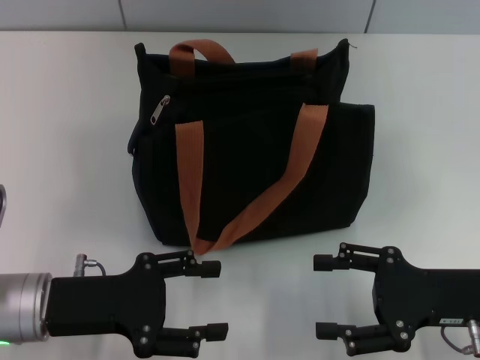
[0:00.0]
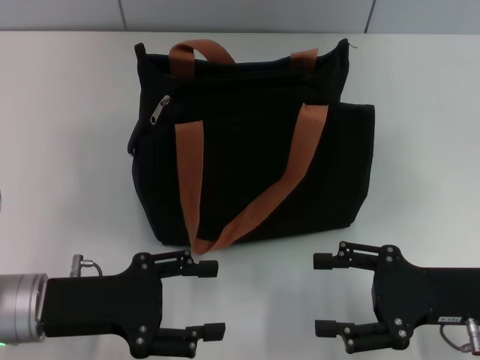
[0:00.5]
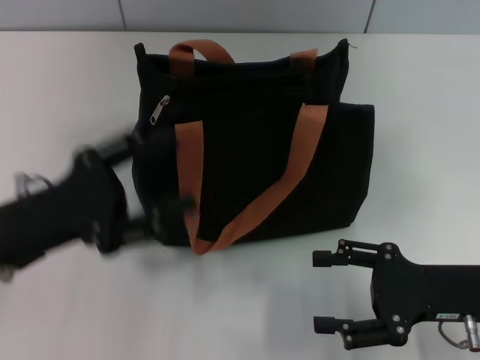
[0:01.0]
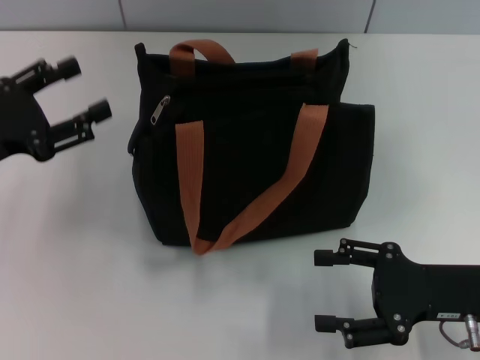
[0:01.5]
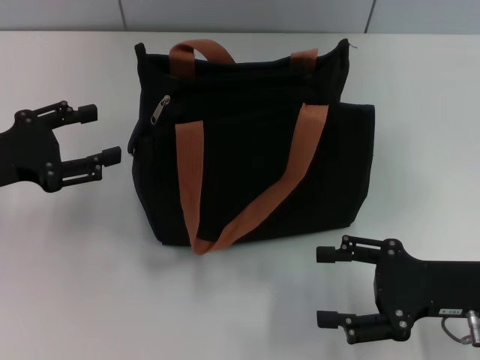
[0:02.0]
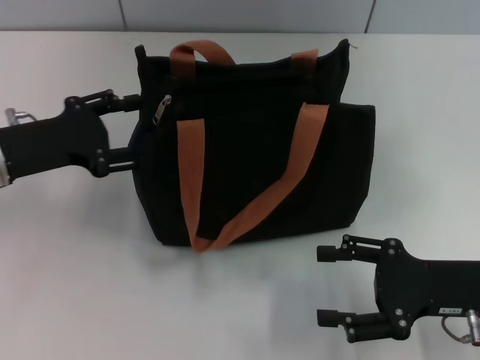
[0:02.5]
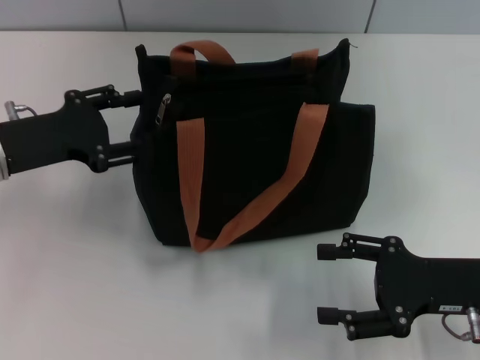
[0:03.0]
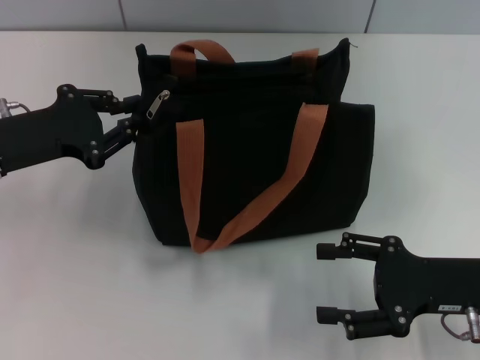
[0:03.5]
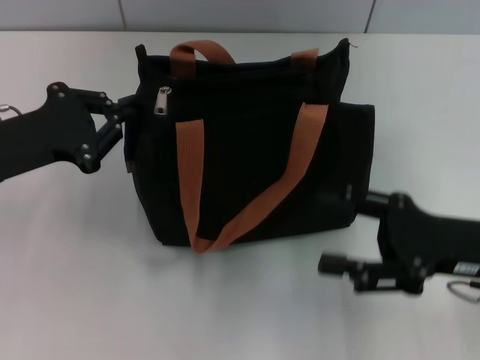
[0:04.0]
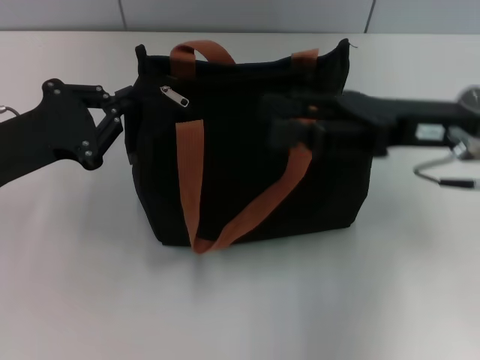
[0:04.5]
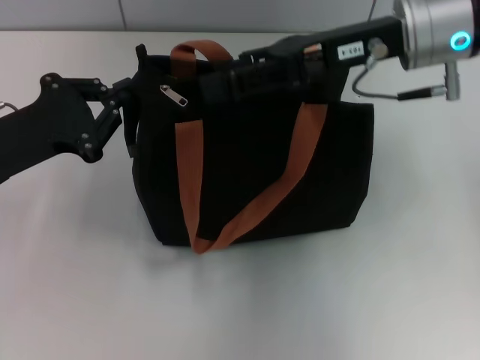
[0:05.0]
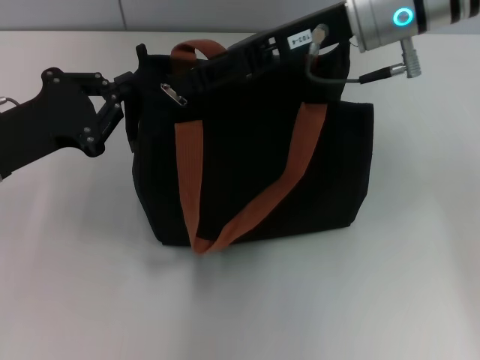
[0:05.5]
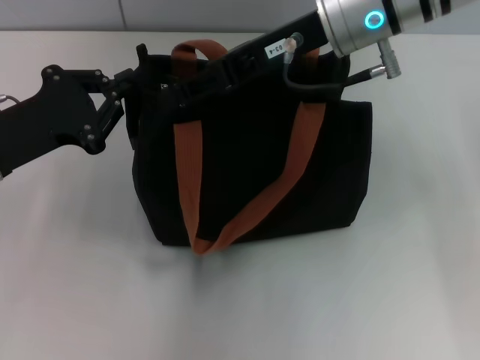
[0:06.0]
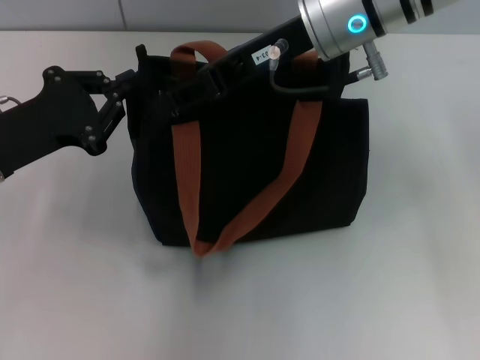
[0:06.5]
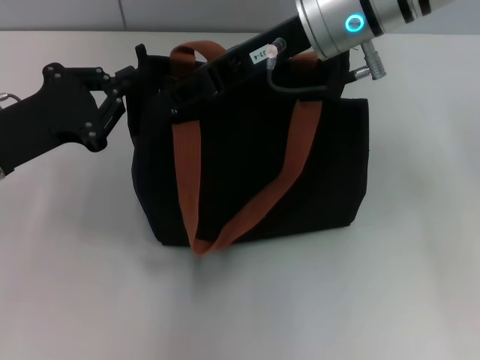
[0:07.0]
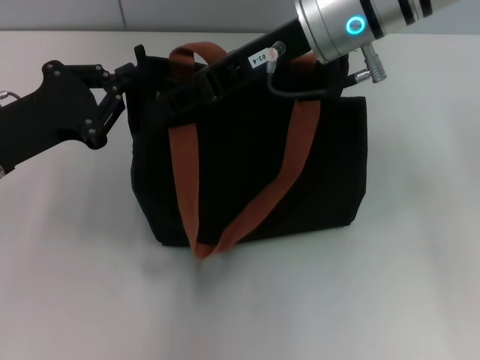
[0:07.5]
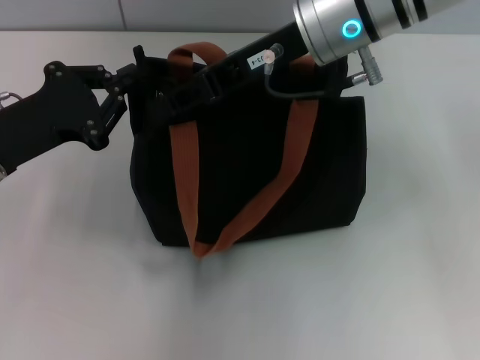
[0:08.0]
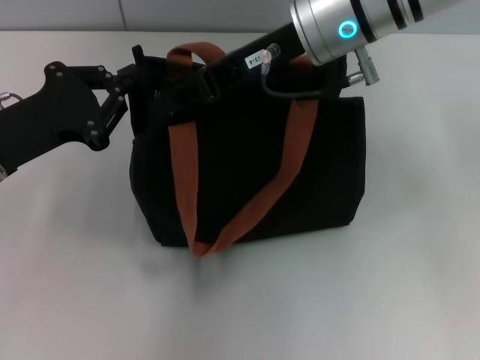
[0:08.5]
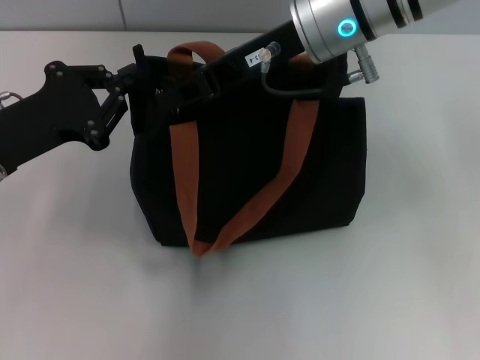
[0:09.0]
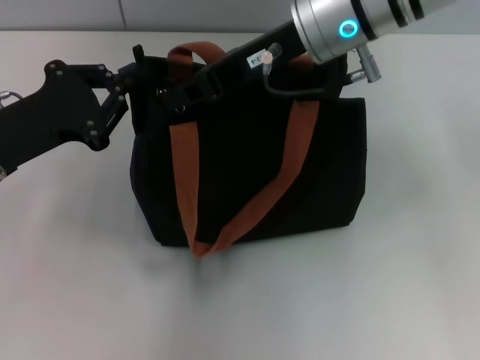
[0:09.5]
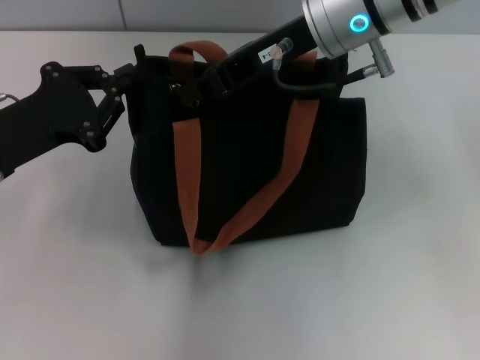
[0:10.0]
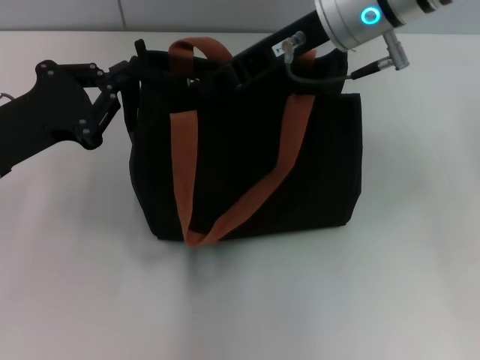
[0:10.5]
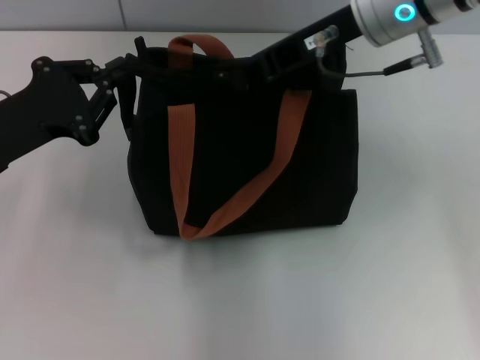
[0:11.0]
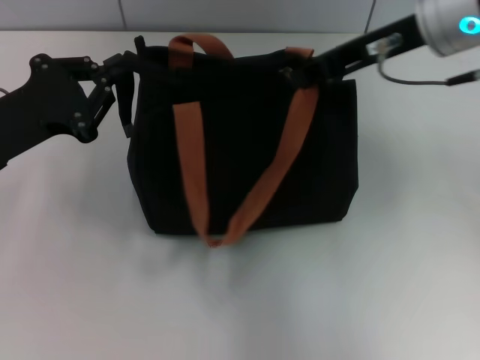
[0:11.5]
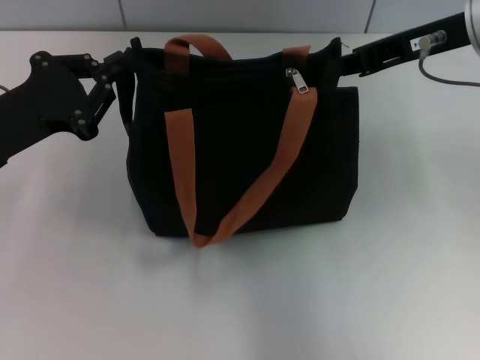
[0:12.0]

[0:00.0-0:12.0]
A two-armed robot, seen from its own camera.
0:00.0 to 0:02.0: The left gripper is displaced to the left, forward and upward by roughly 15 cm.
0:02.0 to 0:04.0: The left gripper closes its fingers.
0:04.0 to 0:06.0: The right gripper is displaced to the left, forward and upward by roughly 25 cm, and closes.
0:06.0 to 0:08.0: The grippers make only small movements.
0:08.0 to 0:10.0: The right gripper closes up.
0:10.0 to 0:12.0: The right gripper travels to the right by roughly 10 cm.

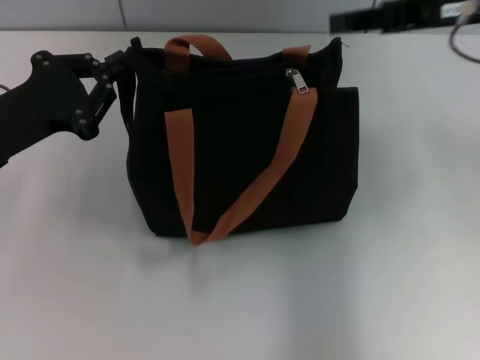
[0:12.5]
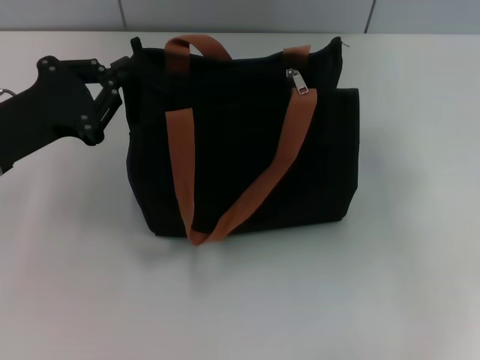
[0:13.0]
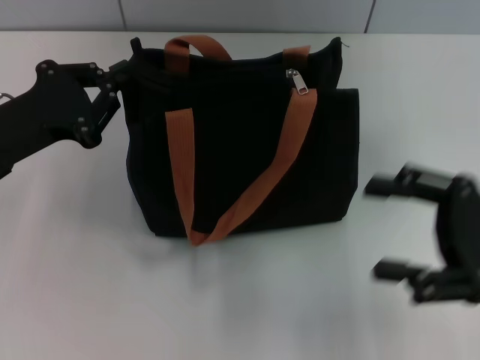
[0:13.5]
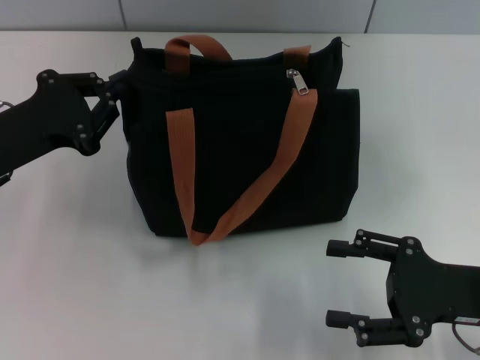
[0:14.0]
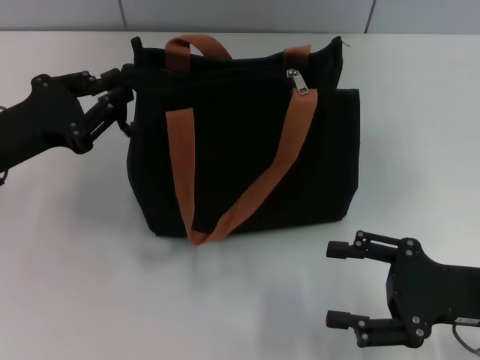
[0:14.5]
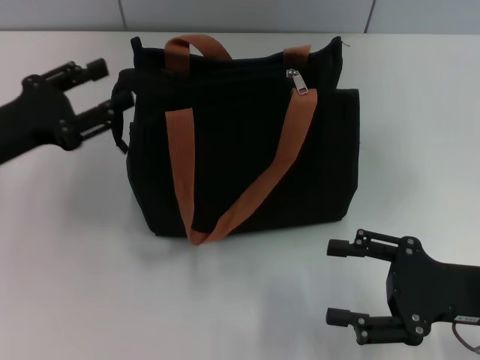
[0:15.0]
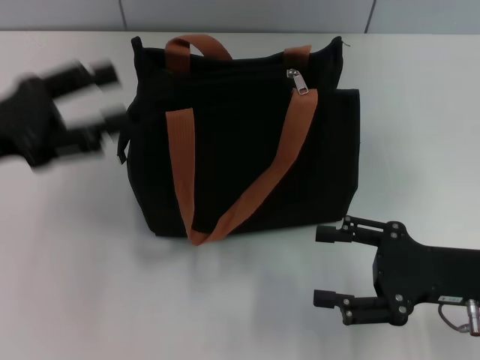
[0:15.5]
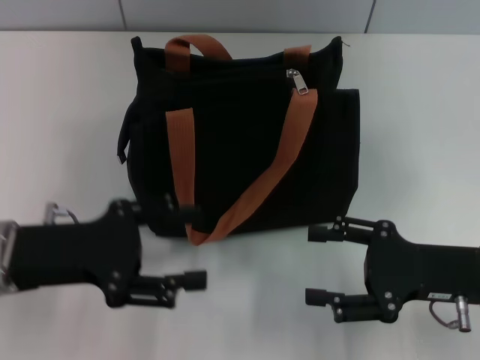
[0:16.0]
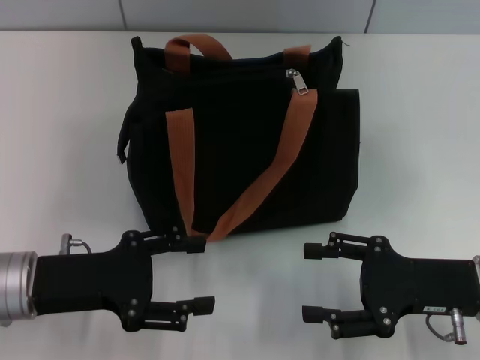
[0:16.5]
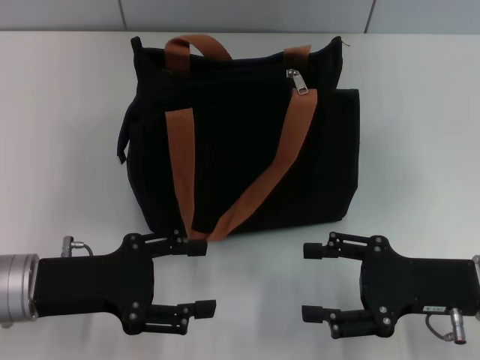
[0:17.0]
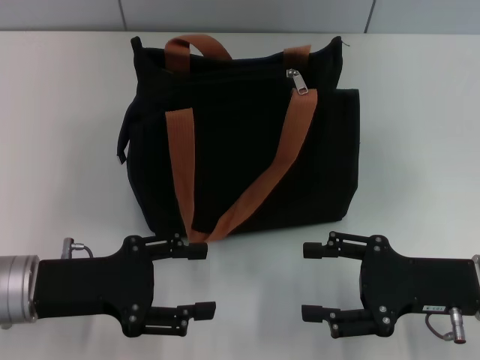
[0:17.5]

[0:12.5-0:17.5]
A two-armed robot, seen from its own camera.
0:12.5 to 0:15.0: The right gripper moves downward and backward, about 25 cm, and opens; the left gripper opens its fingers.
0:15.0 to 0:17.5: The left gripper travels backward and to the right by approximately 10 cm, and opens.

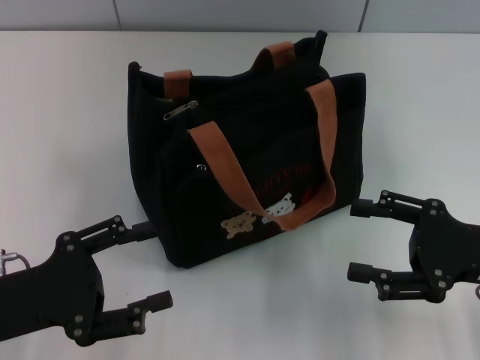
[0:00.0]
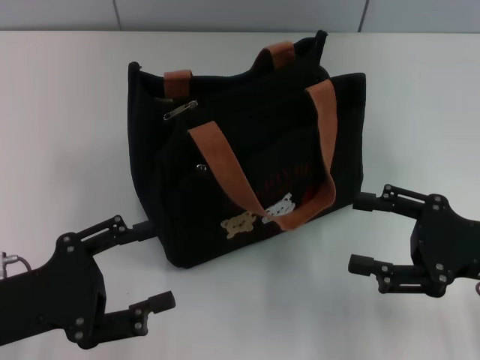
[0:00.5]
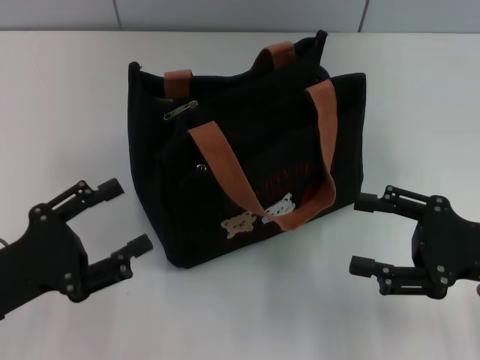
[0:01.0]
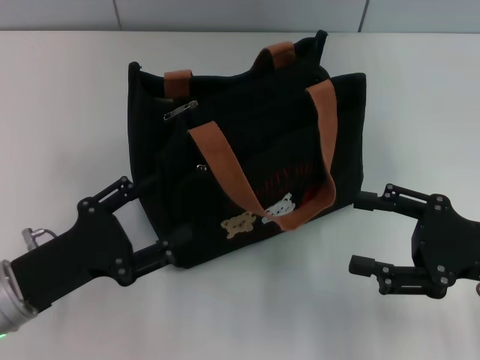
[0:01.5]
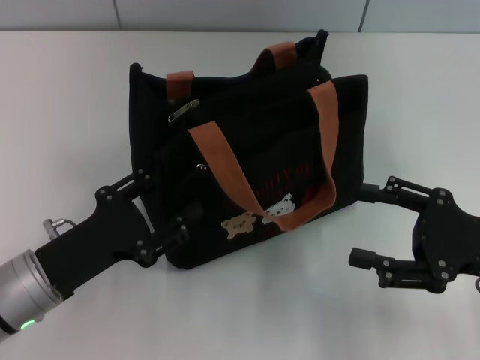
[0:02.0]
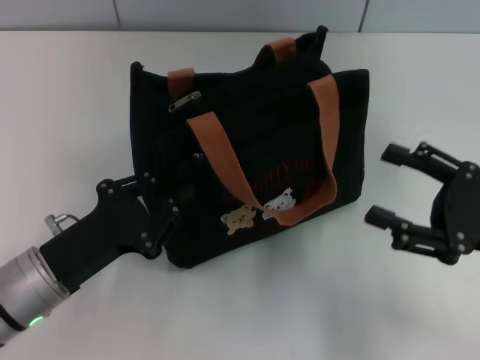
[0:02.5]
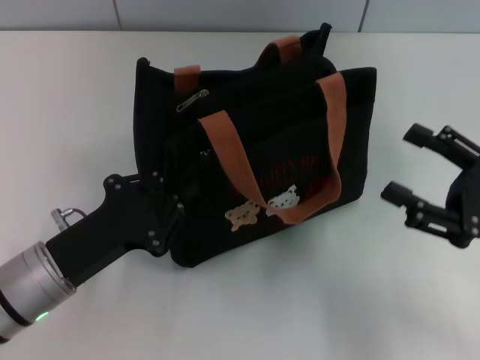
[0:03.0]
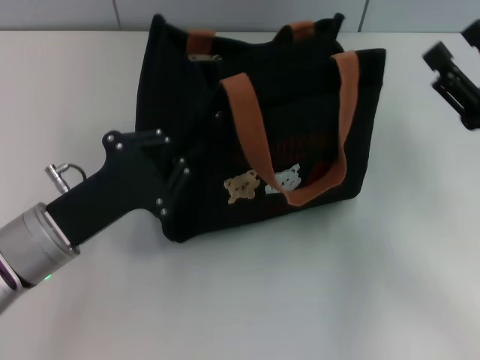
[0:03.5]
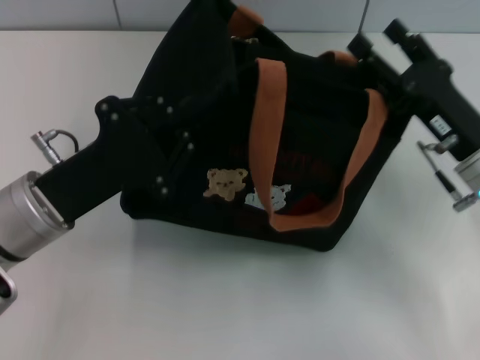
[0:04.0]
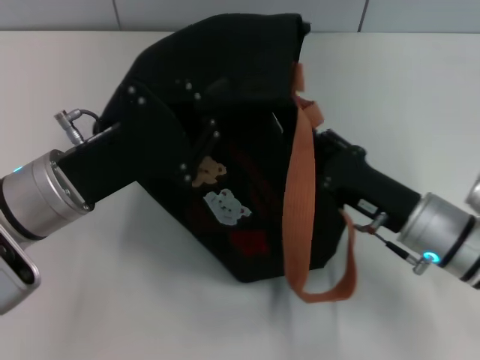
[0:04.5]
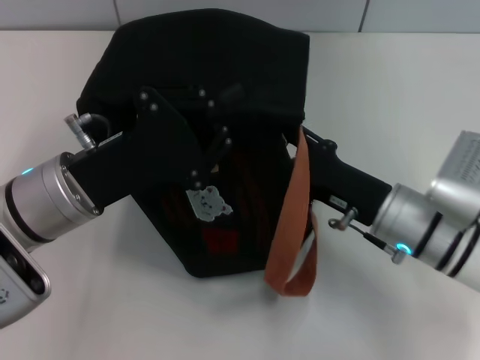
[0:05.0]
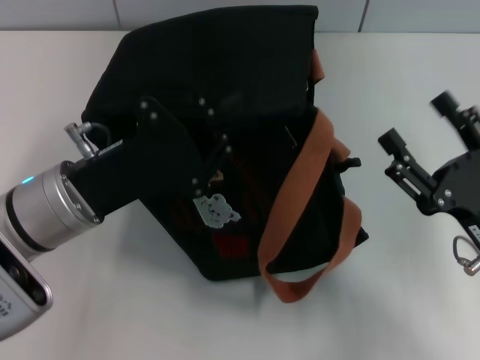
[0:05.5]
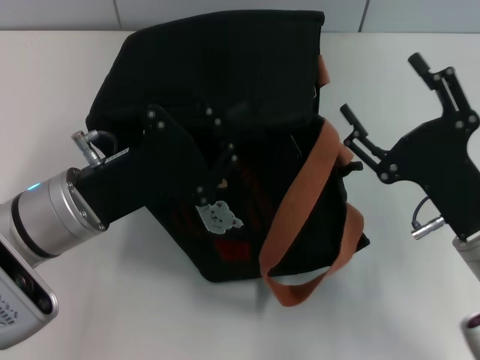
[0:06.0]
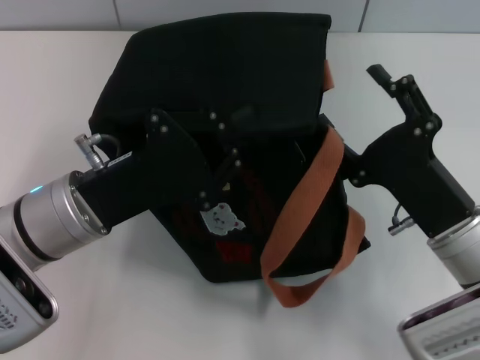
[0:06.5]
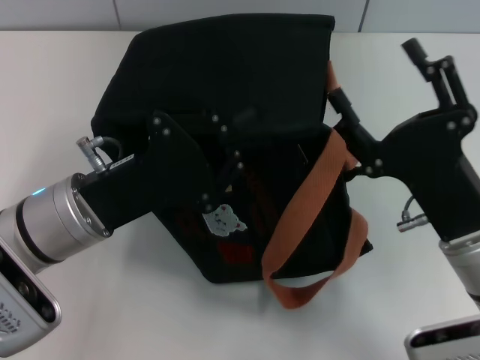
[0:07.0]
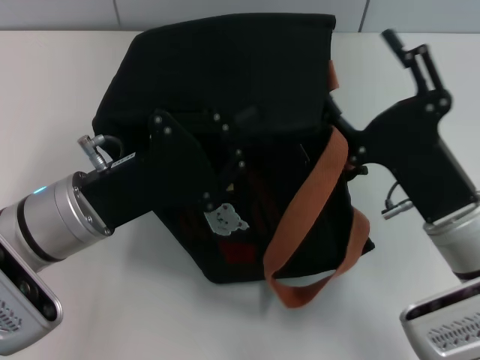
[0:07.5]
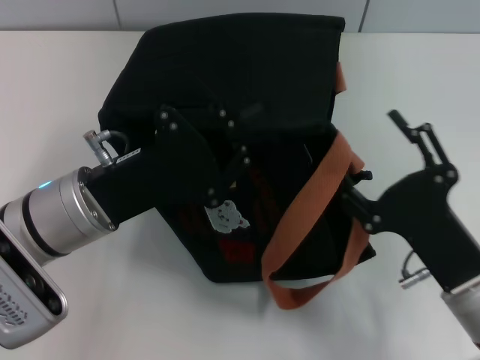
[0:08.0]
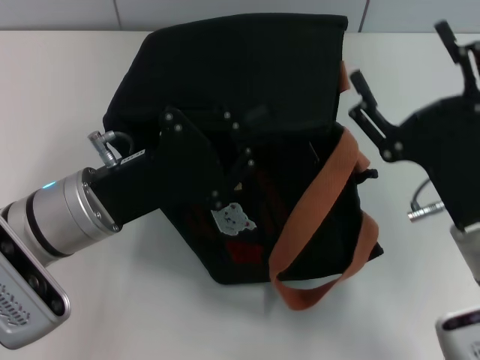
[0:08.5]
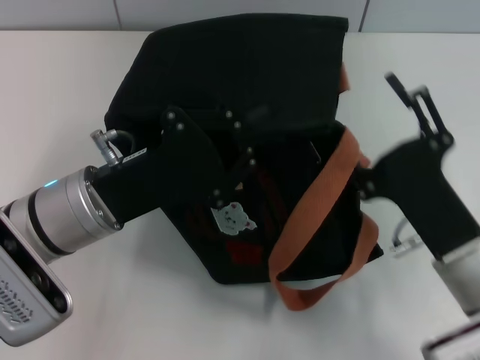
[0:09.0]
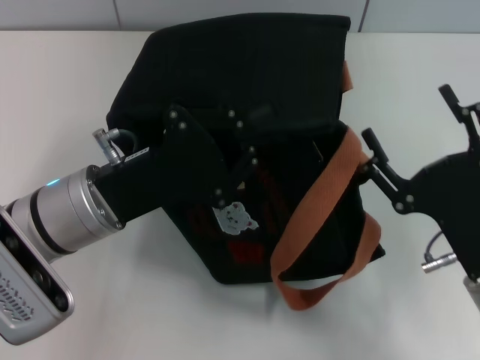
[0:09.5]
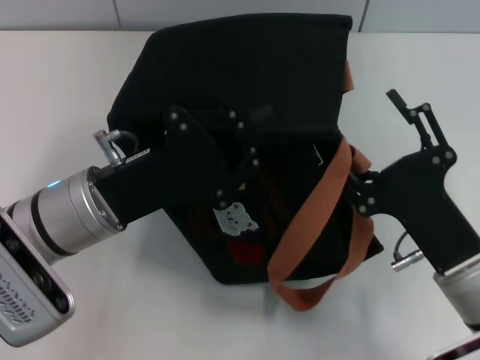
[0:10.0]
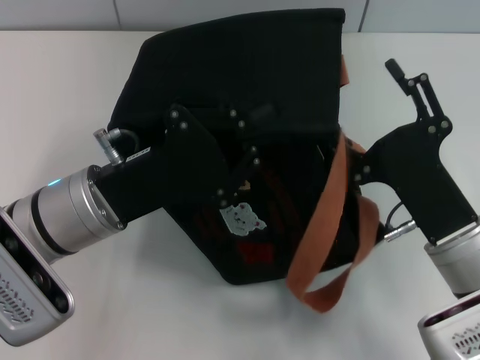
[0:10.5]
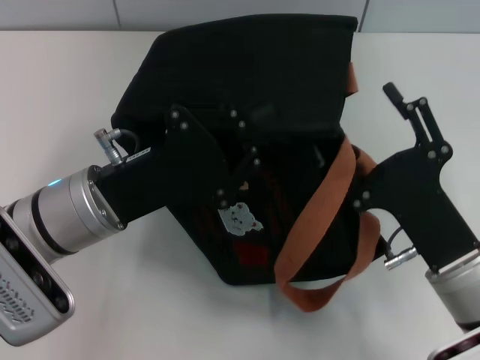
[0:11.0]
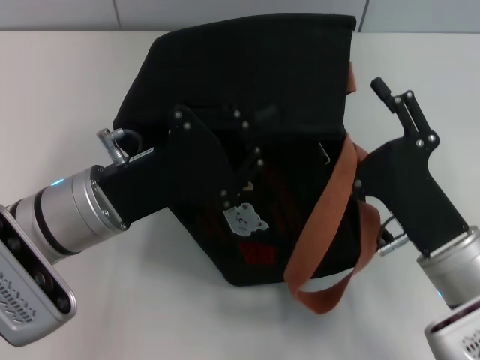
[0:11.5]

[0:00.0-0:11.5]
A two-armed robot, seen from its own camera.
0:00.0 to 0:02.0: The left gripper ends up roughly 5 cm from where it was.
0:02.0 to 0:04.0: The right gripper heads forward and to the left, covering about 10 cm. Meanwhile the left gripper is displaced upward by roughly 5 cm, and closes.
0:04.0 to 0:06.0: The right gripper moves backward, roughly 5 cm.
0:07.5 to 0:09.5: The right gripper moves roughly 5 cm.
0:09.5 to 0:11.5: The grippers make only small movements.
